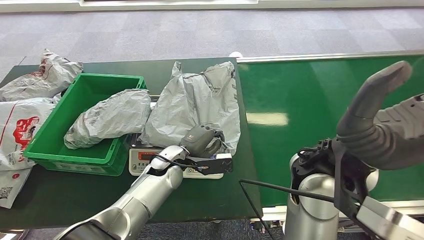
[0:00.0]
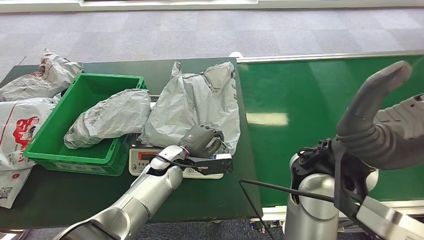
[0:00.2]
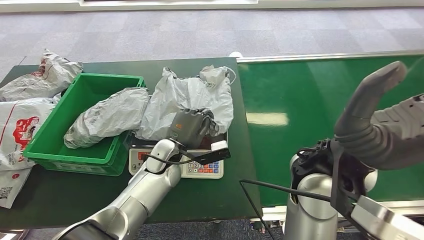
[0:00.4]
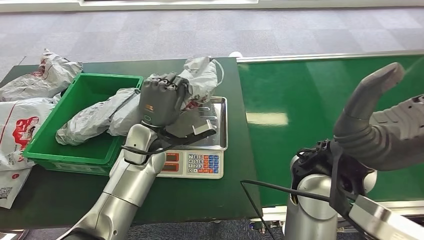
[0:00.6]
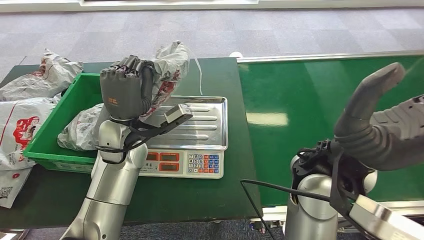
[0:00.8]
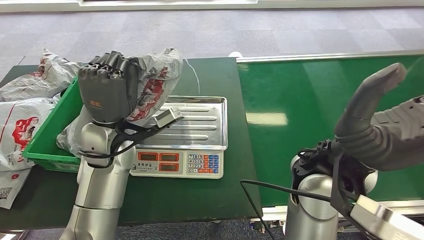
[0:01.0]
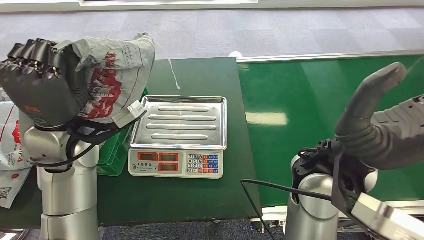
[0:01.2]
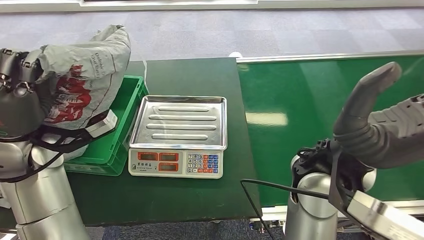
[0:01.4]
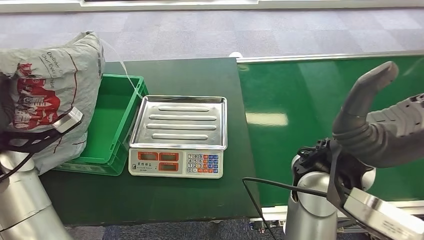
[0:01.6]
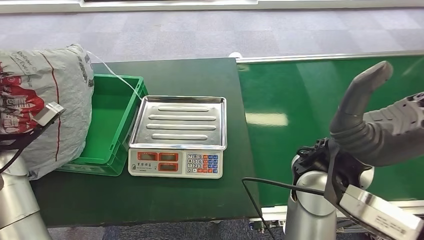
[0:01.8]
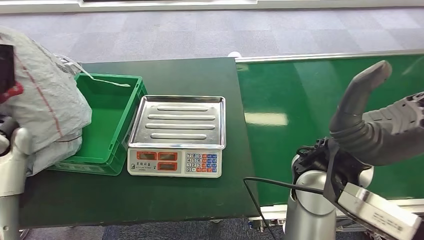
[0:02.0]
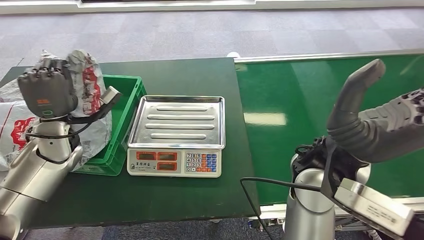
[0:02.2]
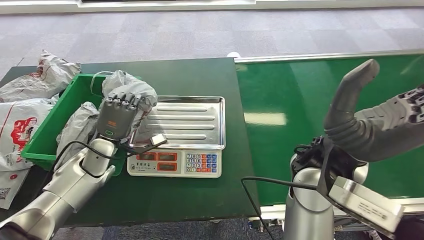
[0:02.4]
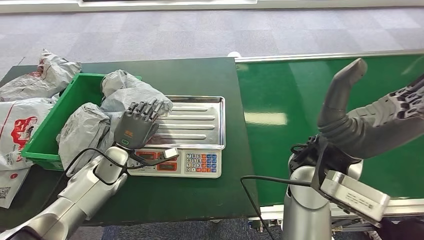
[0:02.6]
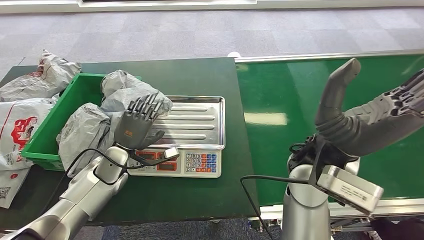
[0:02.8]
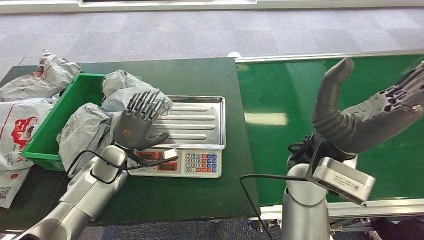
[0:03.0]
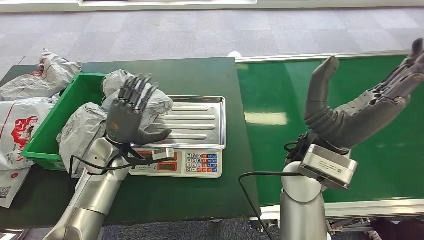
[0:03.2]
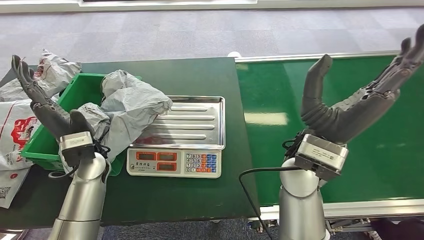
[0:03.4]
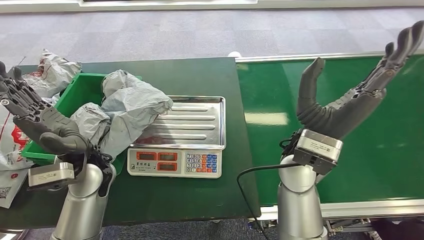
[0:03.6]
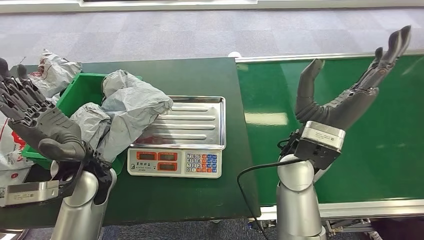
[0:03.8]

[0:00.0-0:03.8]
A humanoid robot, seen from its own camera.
Step, 0:01.4 to 0:03.8: Place the package into the parcel locker.

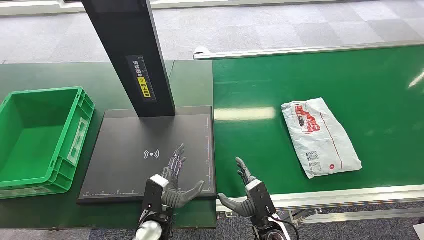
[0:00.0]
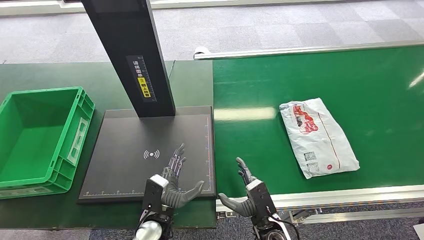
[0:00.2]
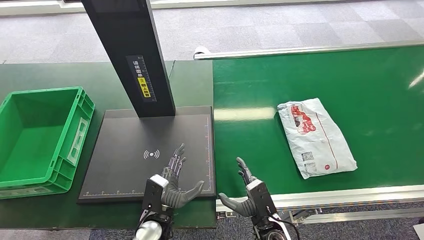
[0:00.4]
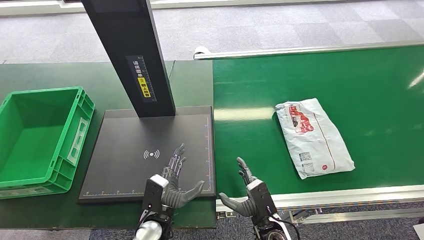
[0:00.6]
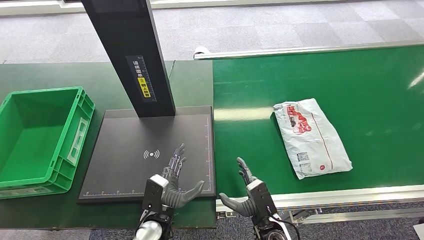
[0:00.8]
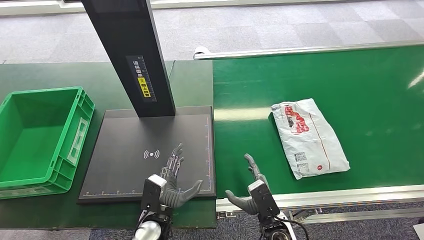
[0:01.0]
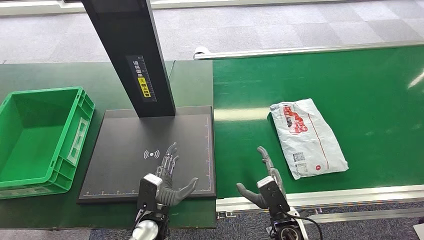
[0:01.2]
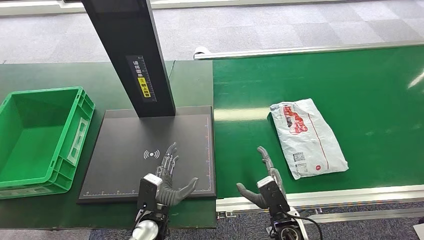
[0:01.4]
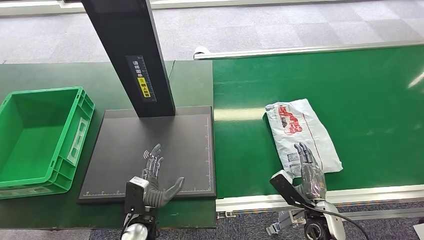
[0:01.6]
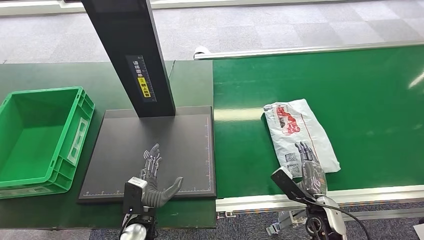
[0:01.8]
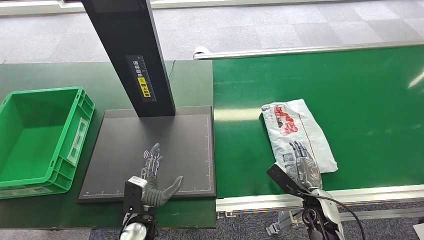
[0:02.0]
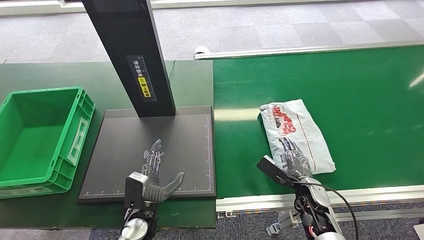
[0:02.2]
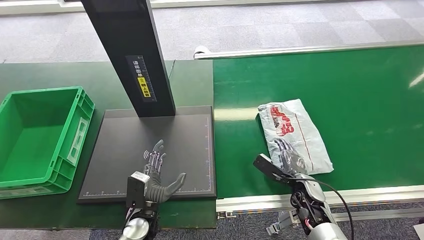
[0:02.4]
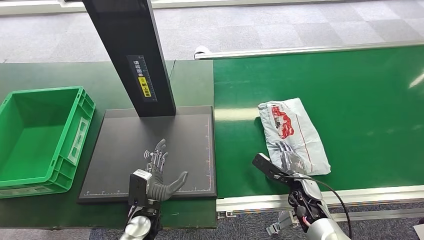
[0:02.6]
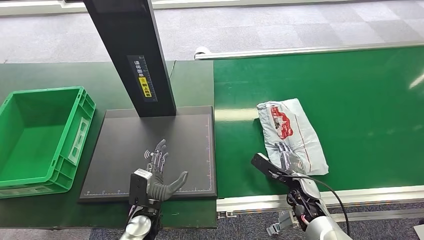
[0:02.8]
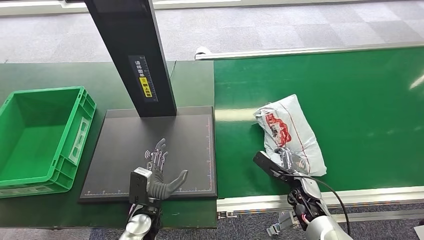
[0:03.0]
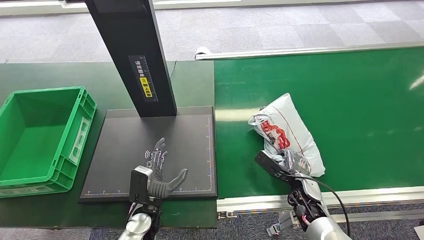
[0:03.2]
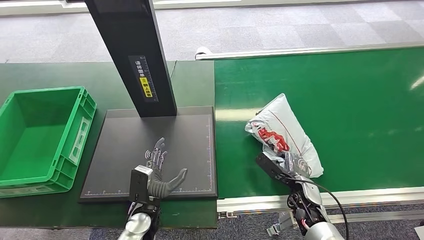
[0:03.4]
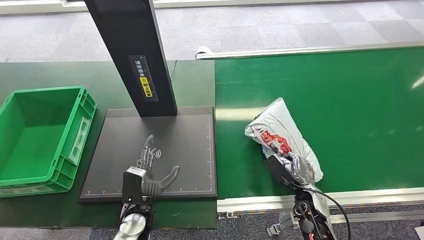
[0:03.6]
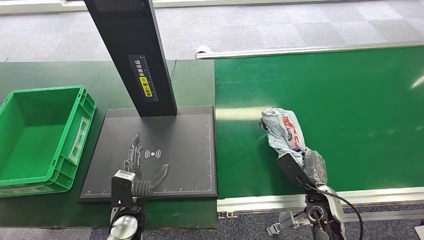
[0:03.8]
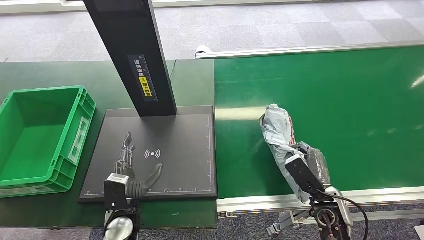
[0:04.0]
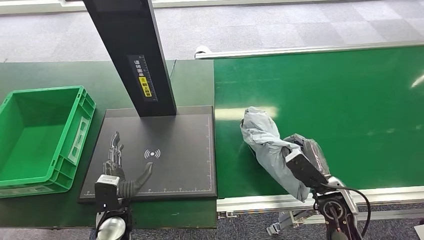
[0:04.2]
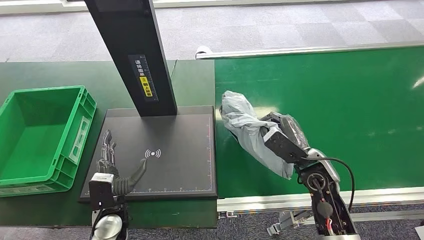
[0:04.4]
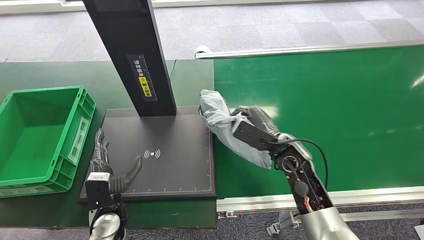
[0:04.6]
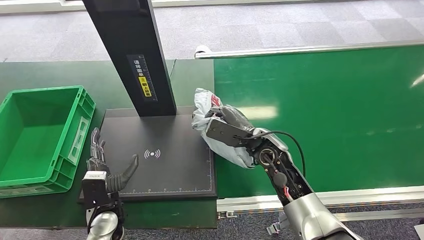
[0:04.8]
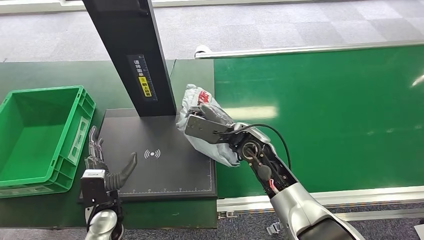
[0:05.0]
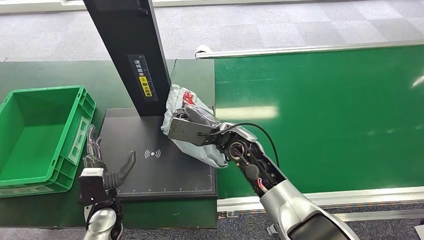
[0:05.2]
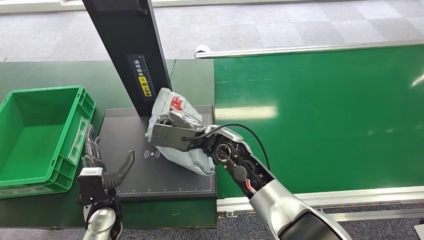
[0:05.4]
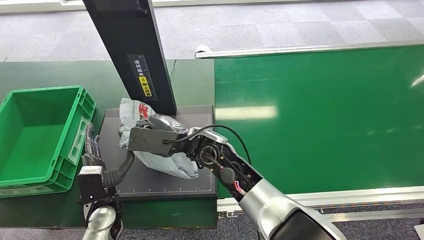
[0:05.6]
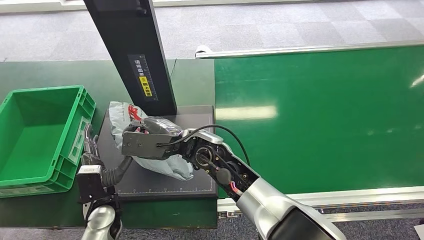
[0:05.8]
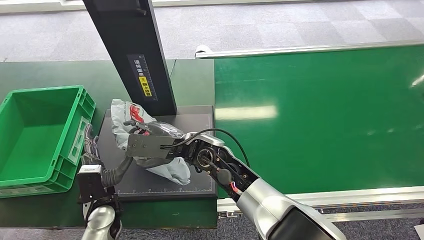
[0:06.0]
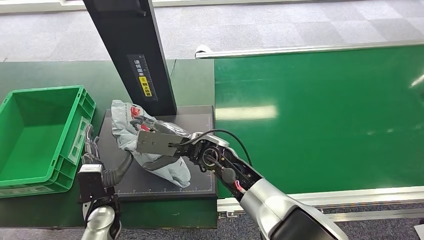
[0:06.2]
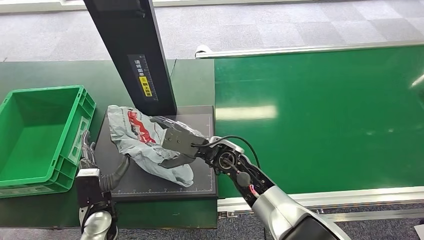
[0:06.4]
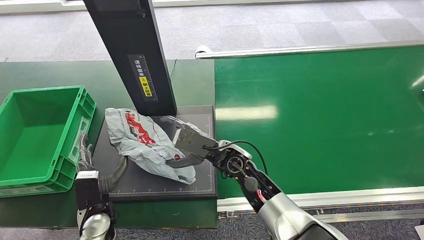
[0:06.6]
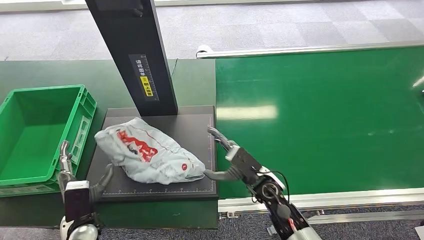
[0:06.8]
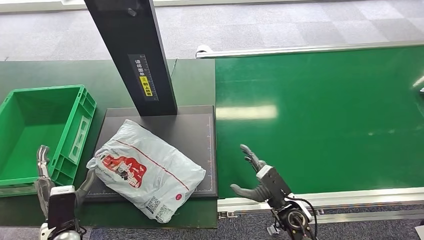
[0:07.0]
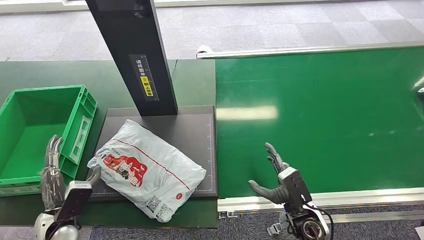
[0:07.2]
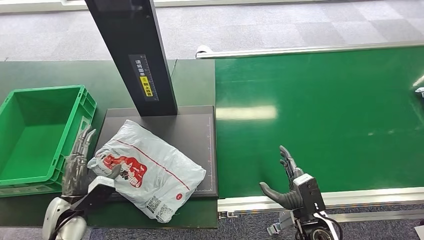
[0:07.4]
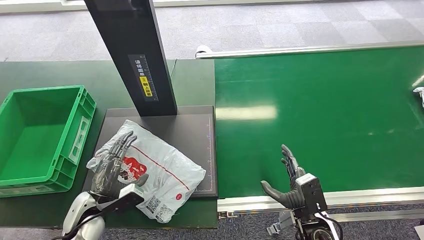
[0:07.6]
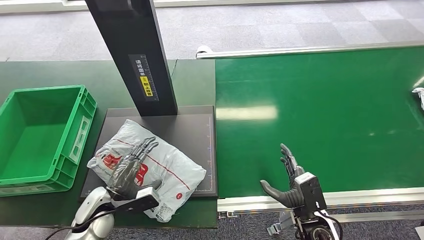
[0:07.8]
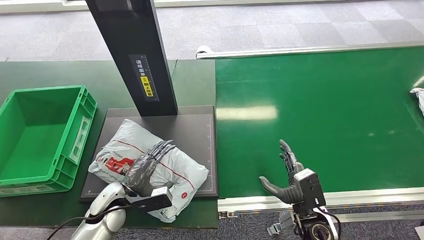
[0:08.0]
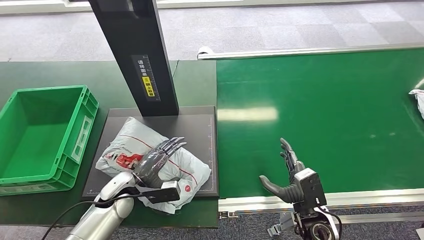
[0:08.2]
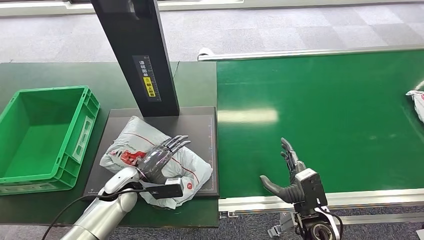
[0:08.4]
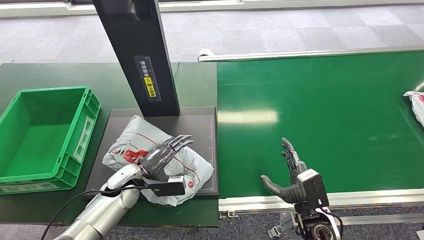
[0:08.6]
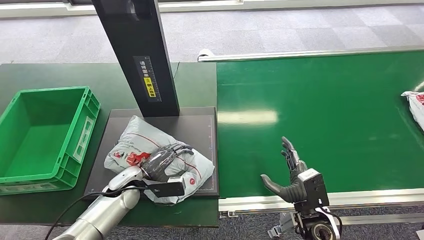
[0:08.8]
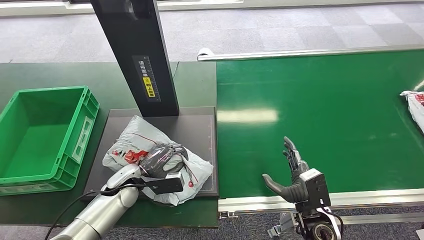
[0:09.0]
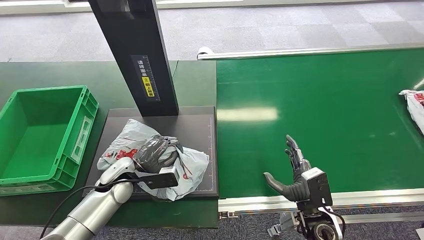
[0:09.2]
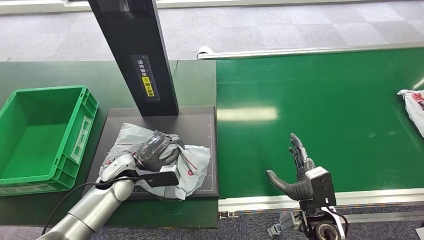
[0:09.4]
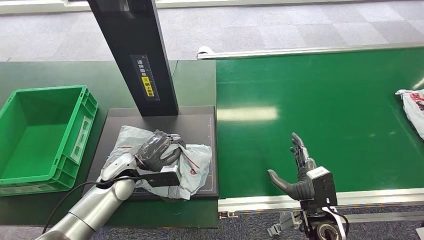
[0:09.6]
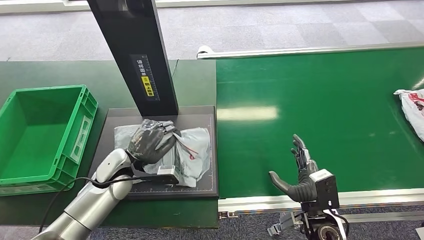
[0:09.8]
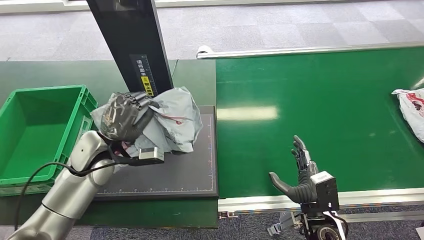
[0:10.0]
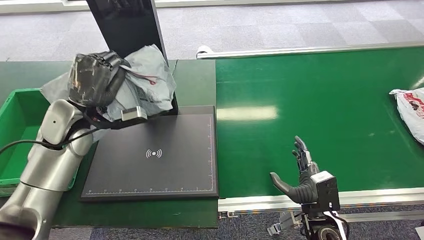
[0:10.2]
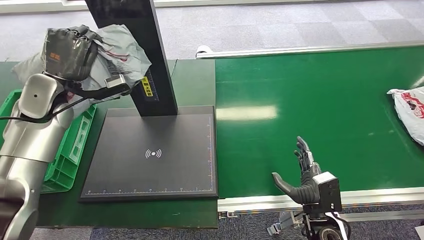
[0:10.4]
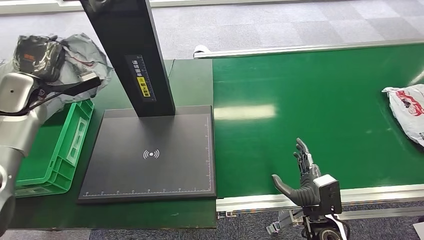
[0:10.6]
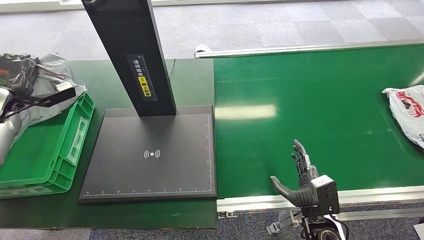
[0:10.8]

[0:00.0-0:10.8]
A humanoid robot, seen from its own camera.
Step, 0:00.0 to 0:04.4: Pick up the package from the conveyor belt.
Step, 0:04.8 to 0:07.4: Place the package onto the inbound machine.
Step, 0:07.6 to 0:10.4: Pick up the package from the inbound machine.
0:01.6 to 0:03.0: The right hand shifts approximately 10 cm forward.
0:03.0 to 0:04.6: The right hand goes roughly 20 cm upward and to the left. Meanwhile the left hand is displaced to the left by roughly 10 cm.
0:04.6 to 0:06.2: The right hand heads to the left, covering about 20 cm.
0:07.8 to 0:09.2: The left hand moves forward, roughly 10 cm.

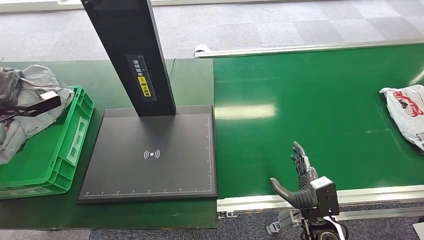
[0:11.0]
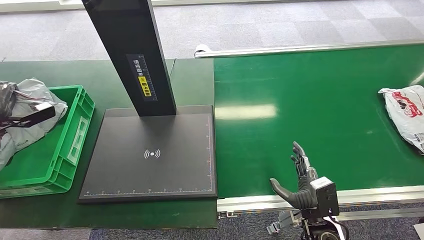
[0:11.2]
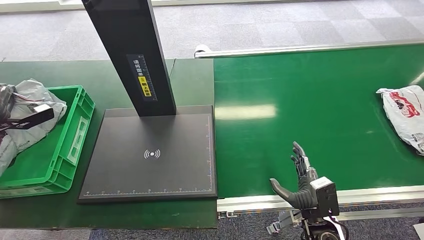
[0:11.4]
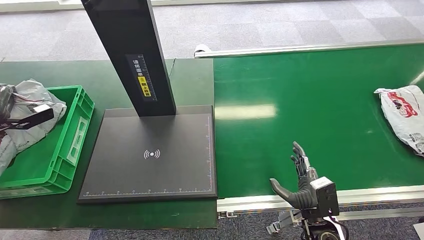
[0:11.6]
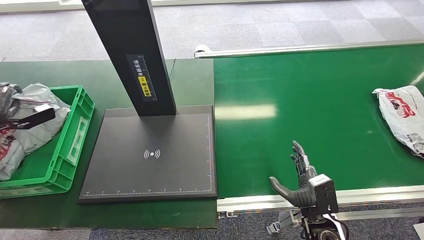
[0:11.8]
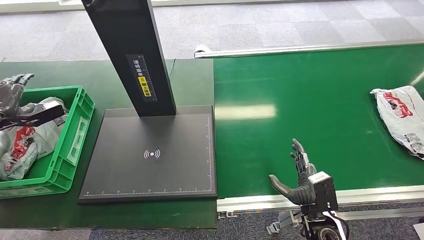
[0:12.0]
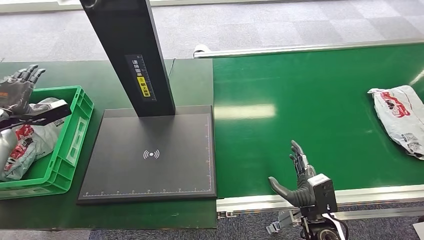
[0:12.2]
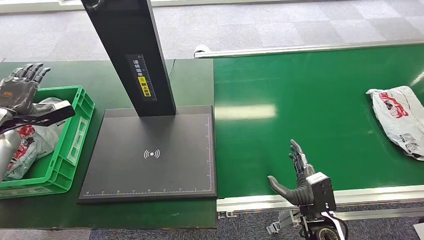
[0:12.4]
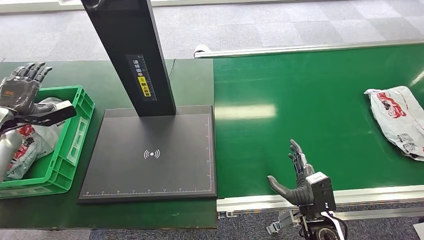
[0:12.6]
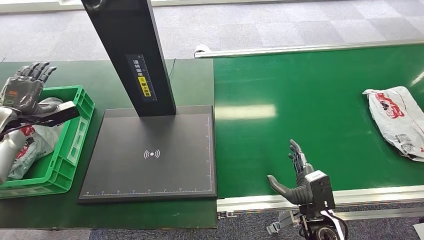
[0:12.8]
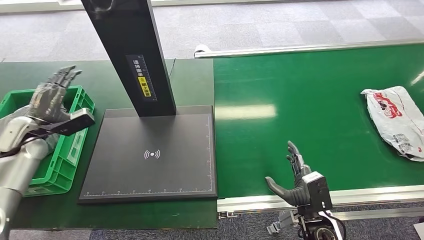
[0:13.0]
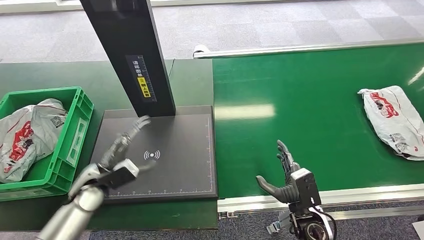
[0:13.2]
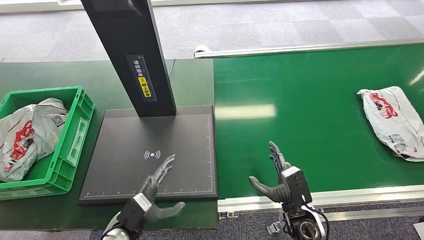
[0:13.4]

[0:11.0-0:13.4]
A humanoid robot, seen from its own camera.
Step, 0:11.0 to 0:13.4: Place the package into the parcel locker.
0:11.0 to 0:12.2: The hands make only small movements.
0:12.2 to 0:13.4: The left hand moves to the right, downward and backward, some 40 cm.
